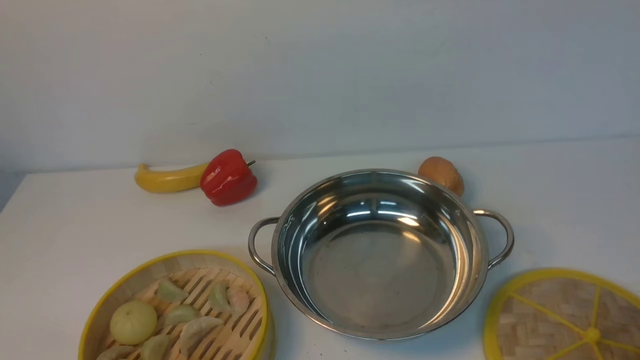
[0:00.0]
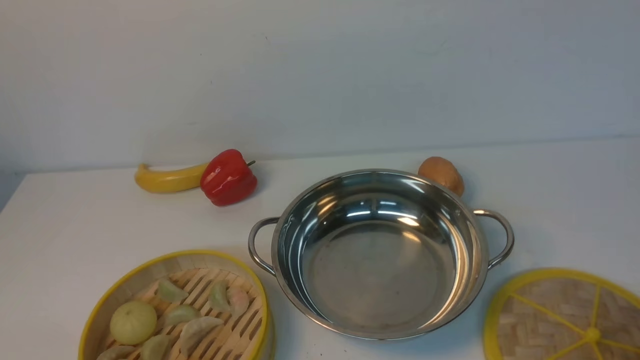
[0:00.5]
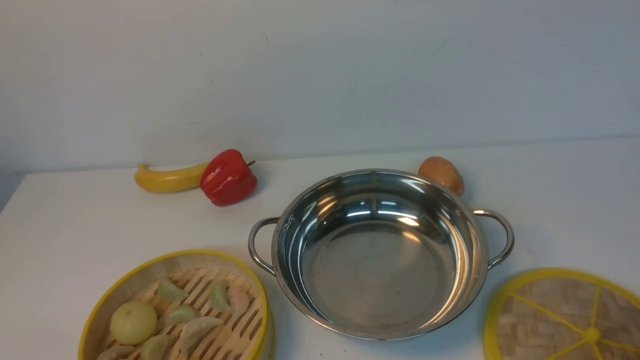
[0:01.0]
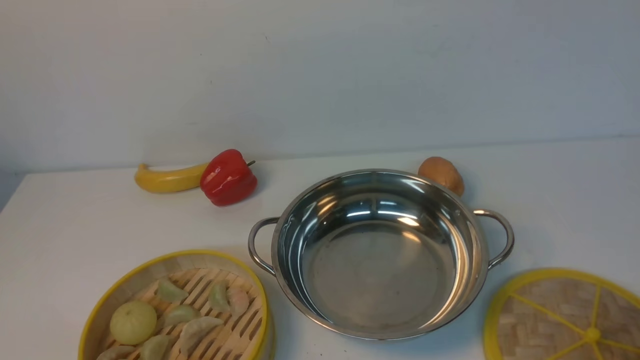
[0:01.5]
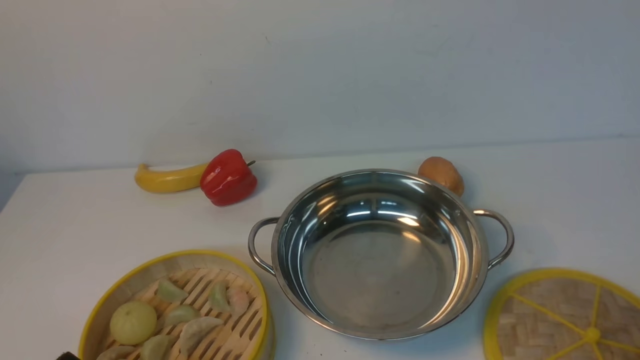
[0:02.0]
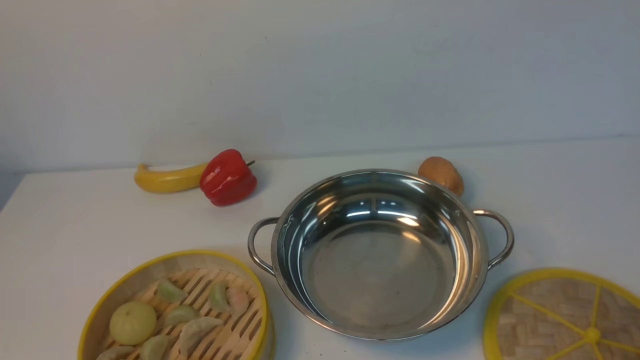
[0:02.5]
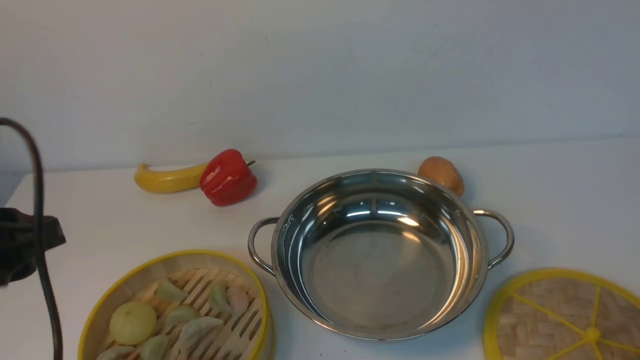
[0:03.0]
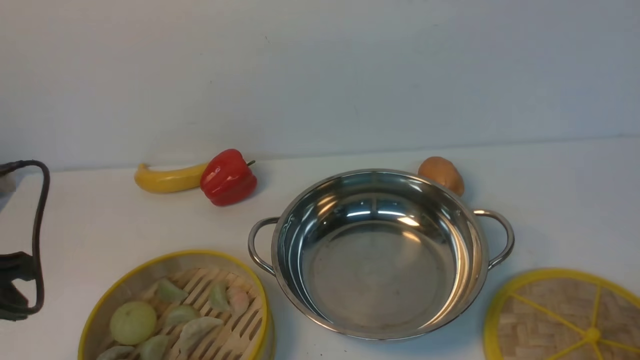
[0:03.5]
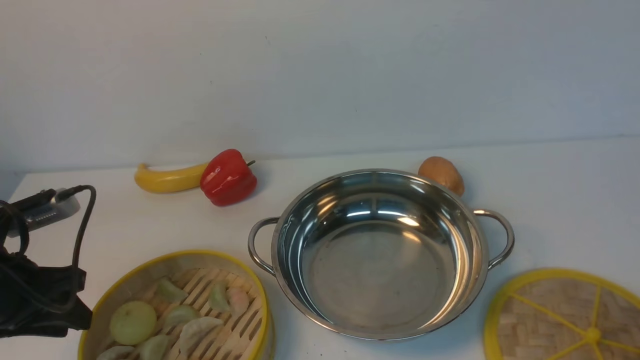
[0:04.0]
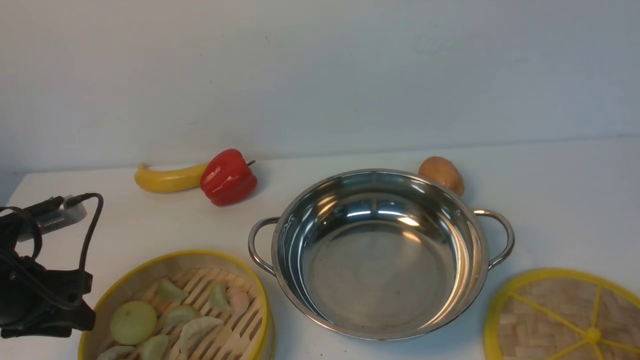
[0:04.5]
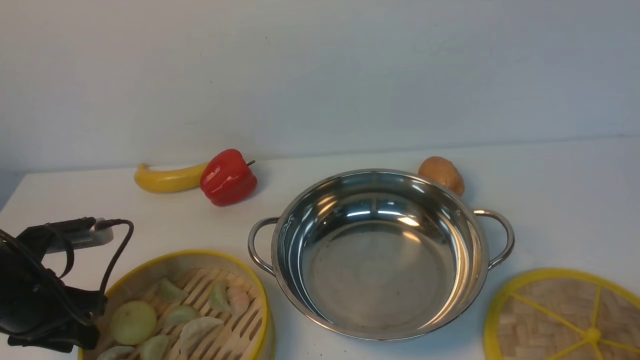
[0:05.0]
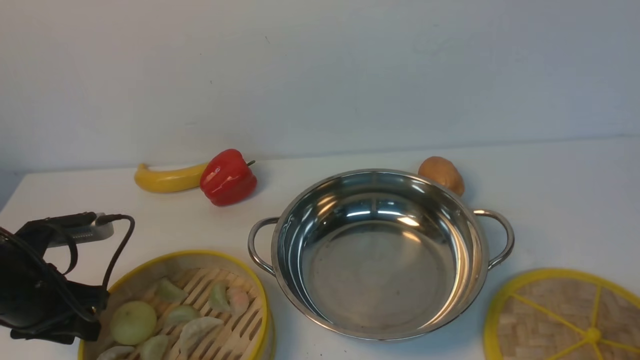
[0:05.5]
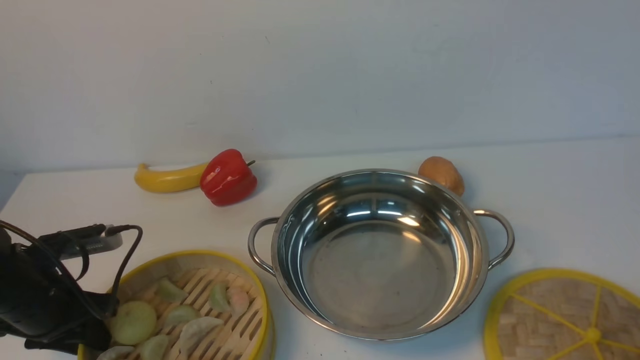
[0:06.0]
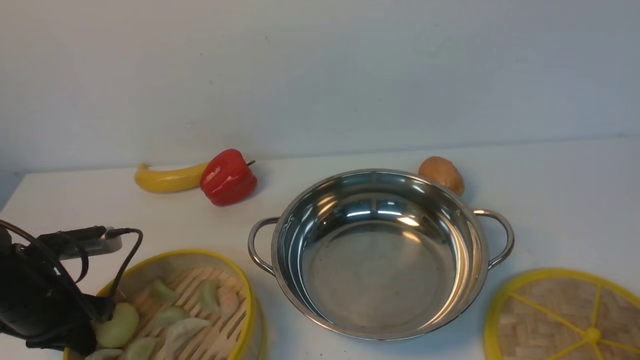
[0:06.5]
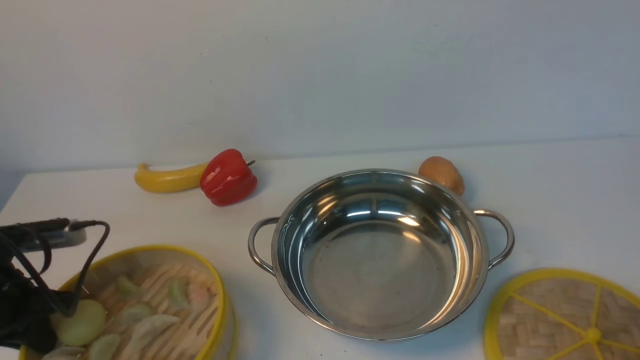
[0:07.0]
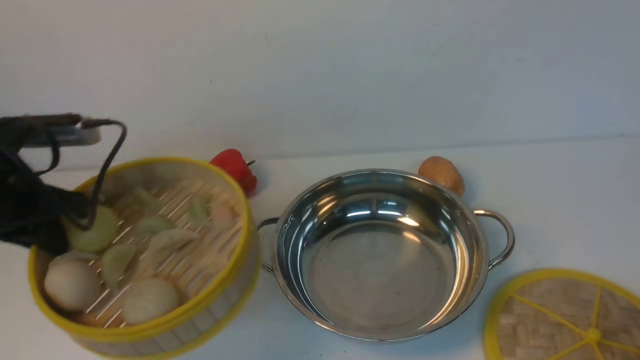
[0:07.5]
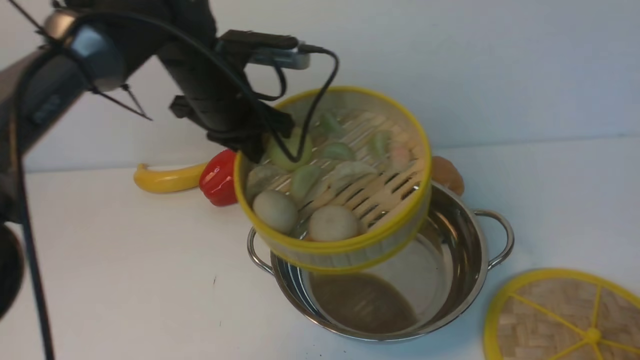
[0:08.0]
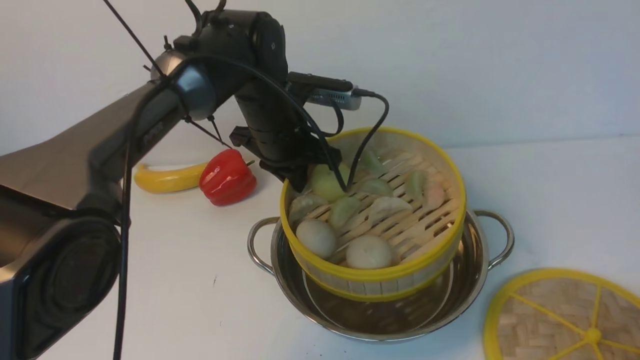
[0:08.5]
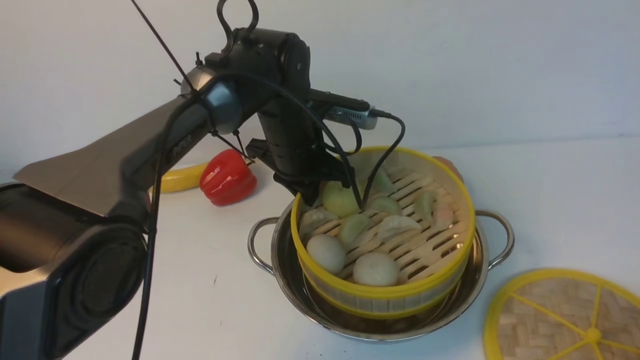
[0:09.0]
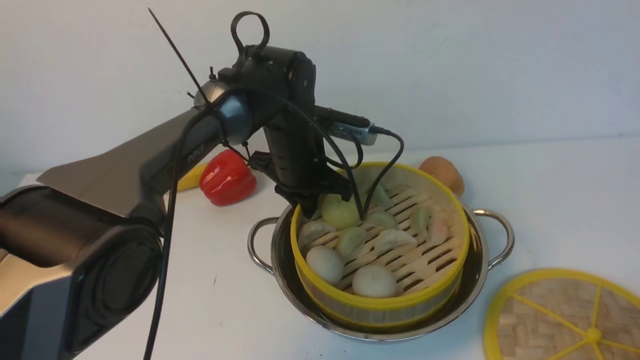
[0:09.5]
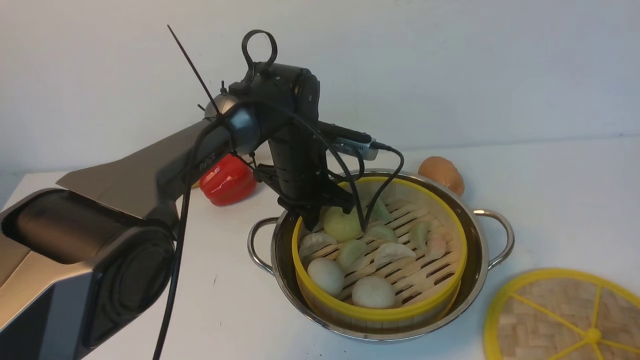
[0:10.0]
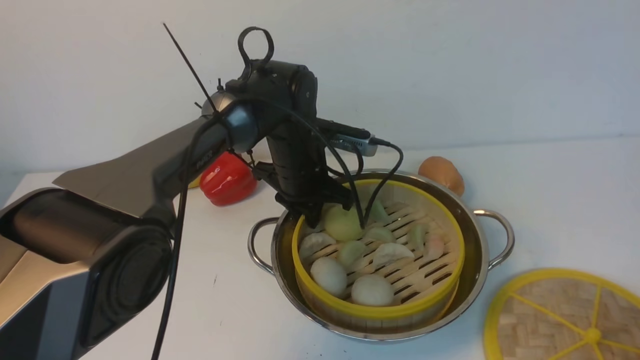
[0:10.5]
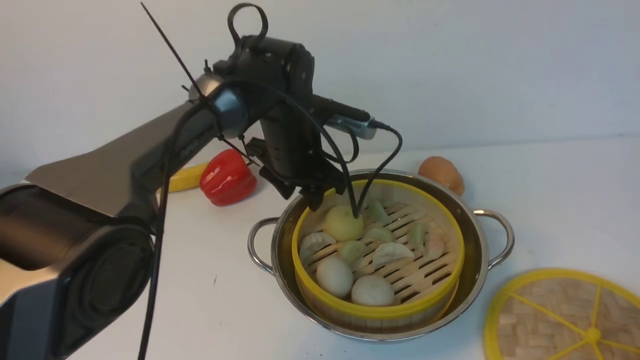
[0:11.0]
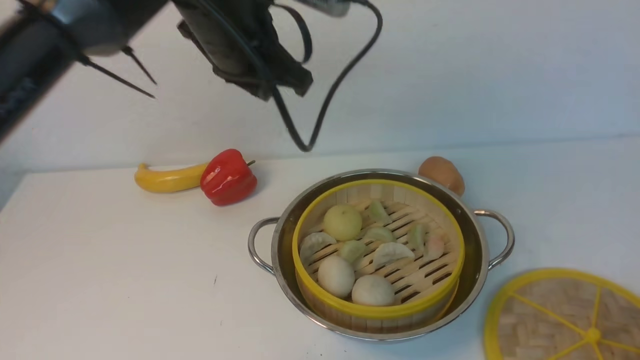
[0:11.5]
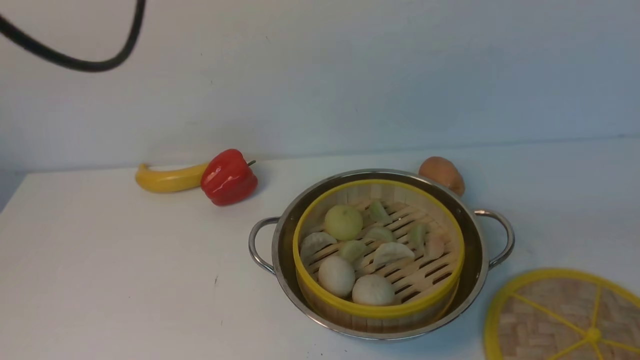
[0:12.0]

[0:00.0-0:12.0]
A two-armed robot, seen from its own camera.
Task of the whole recording: place the steamer in the pot on the white table, and put the lid on the steamer.
Step, 0:00.0 to 0:07.0: use the left arm to lift the steamer closest to it.
Step, 0:08.0 to 0:11.5: use the left arm to put the steamer into the iron steamer pot in the middle.
0:02.0 to 0:04.0: The left gripper goes some 20 cm forward and to the left.
0:04.0 to 0:06.0: The left gripper travels downward by some 5 cm.
0:06.0 to 0:08.0: The left gripper travels to the right, upward and forward by some 30 cm, and closes.
0:08.0 to 0:10.0: The left gripper travels downward and to the right by approximately 15 cm.
0:10.0 to 0:12.0: The left gripper is displaced upward, to the left and backward by approximately 40 cm, and opens and closes again. Meanwhile the right gripper goes about 10 cm upward.

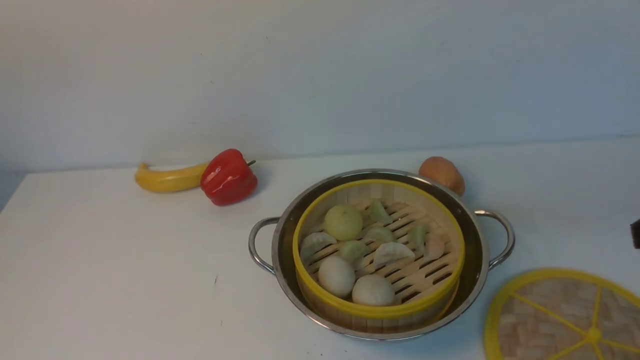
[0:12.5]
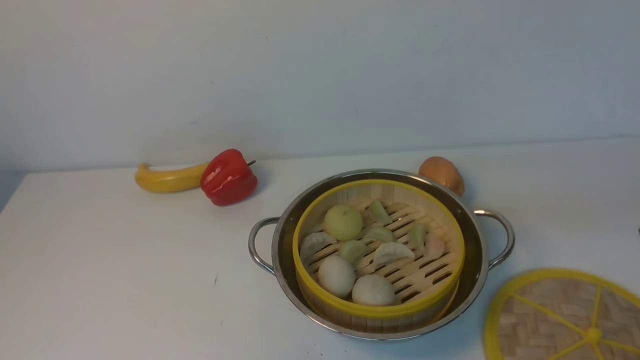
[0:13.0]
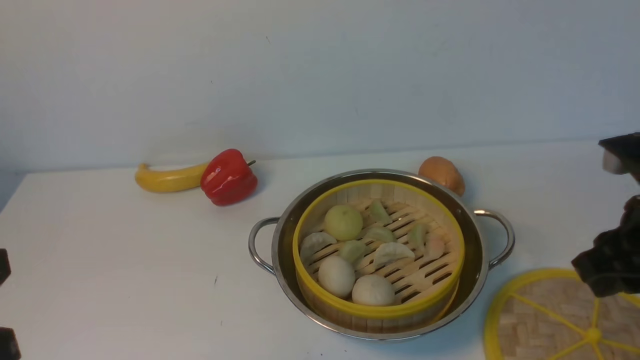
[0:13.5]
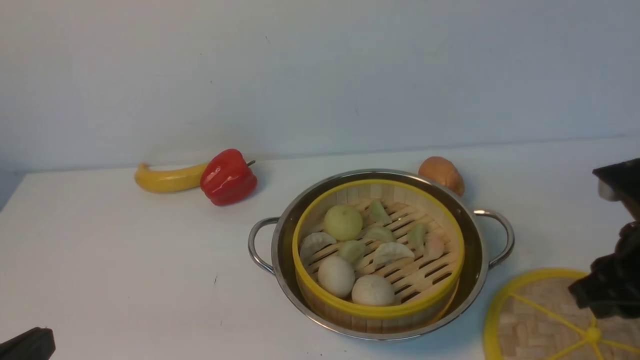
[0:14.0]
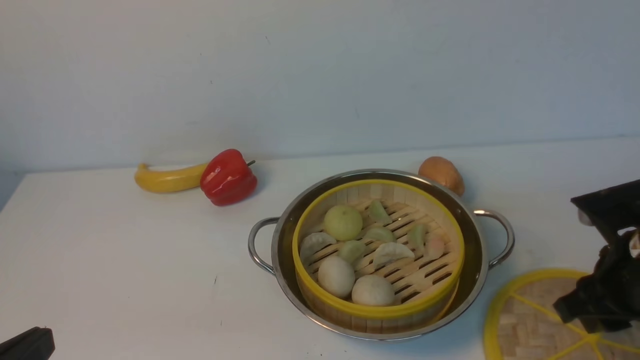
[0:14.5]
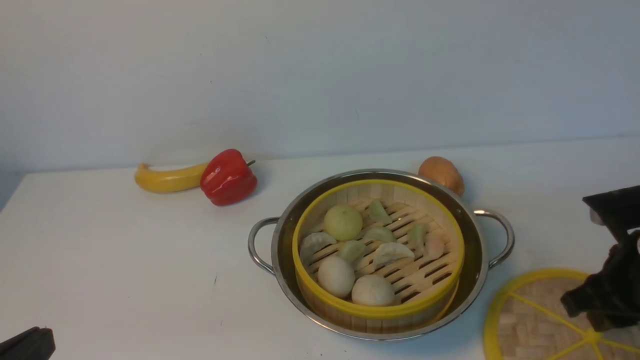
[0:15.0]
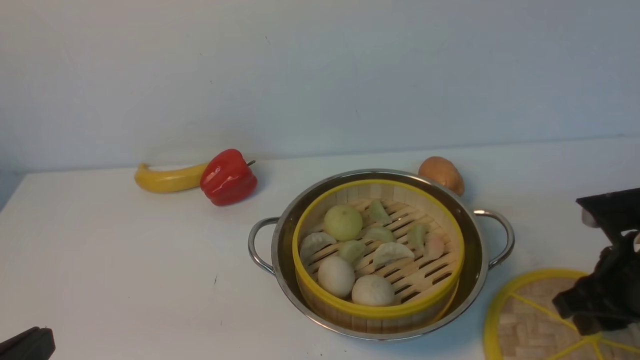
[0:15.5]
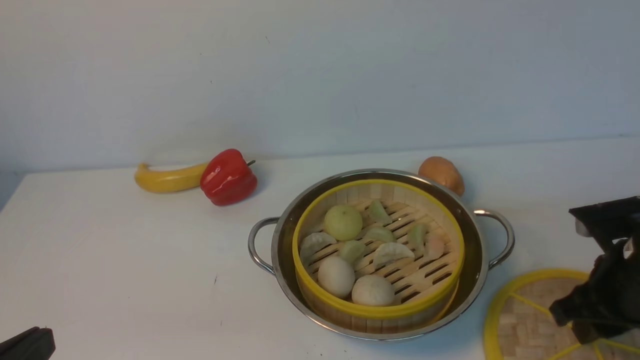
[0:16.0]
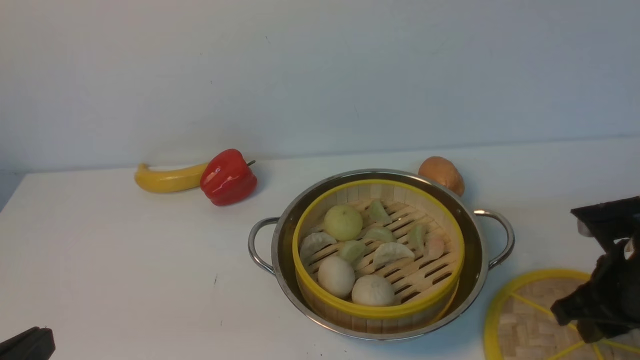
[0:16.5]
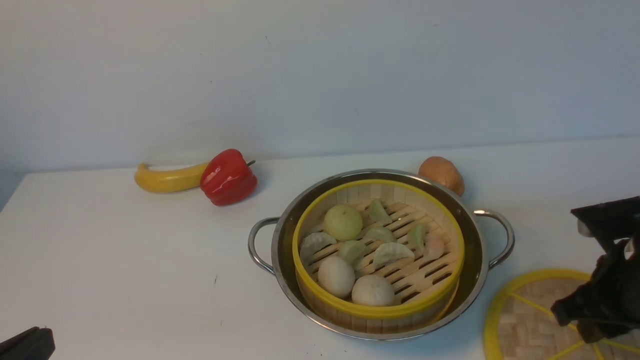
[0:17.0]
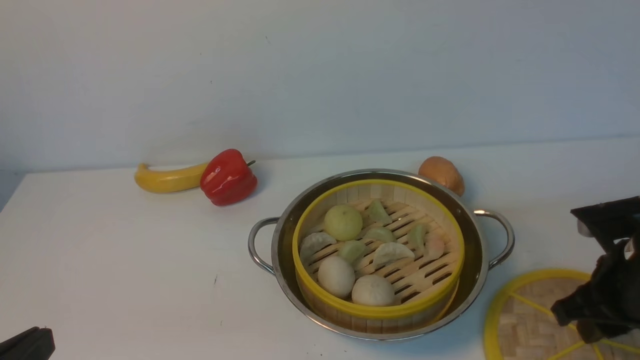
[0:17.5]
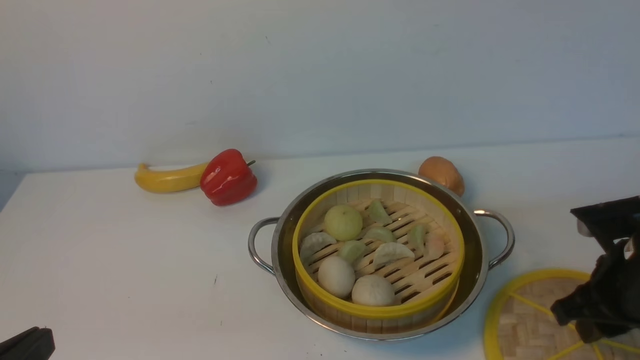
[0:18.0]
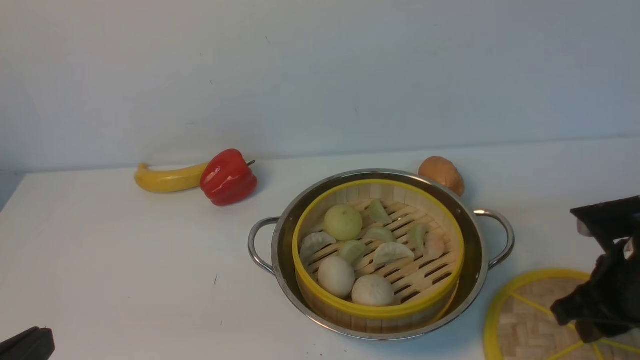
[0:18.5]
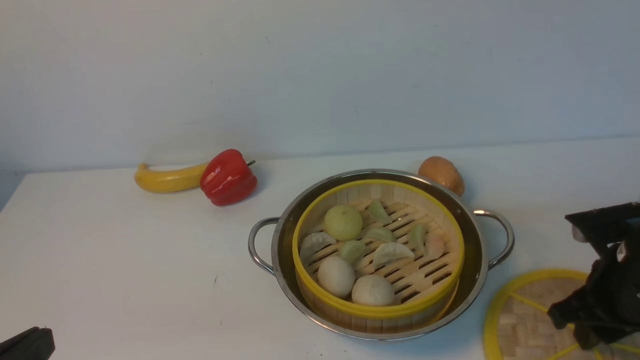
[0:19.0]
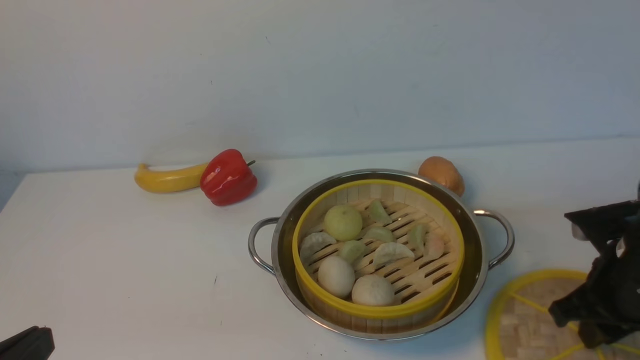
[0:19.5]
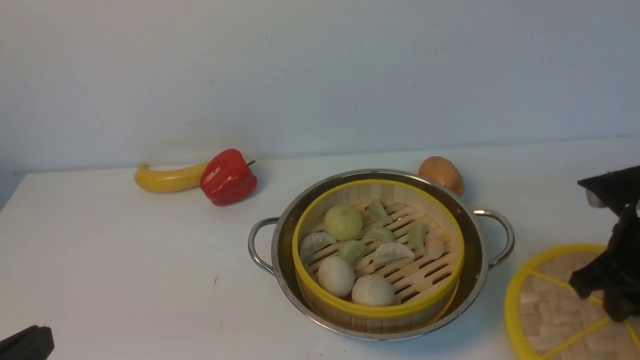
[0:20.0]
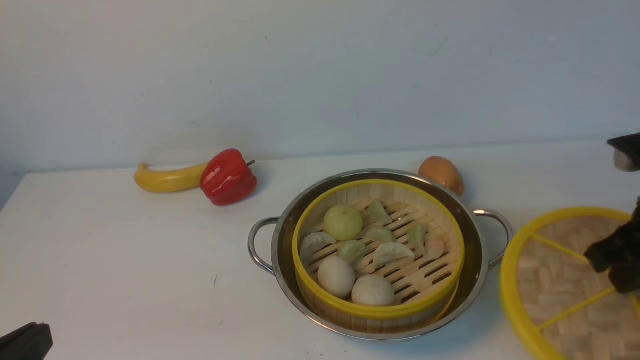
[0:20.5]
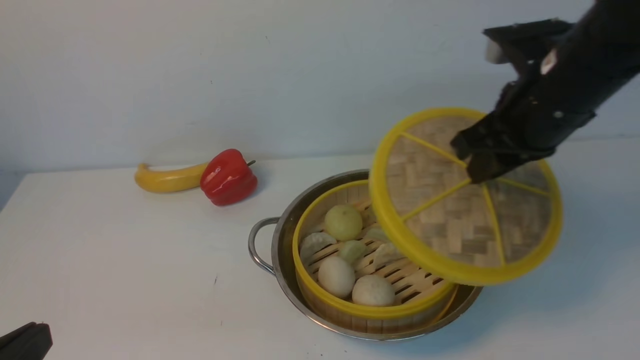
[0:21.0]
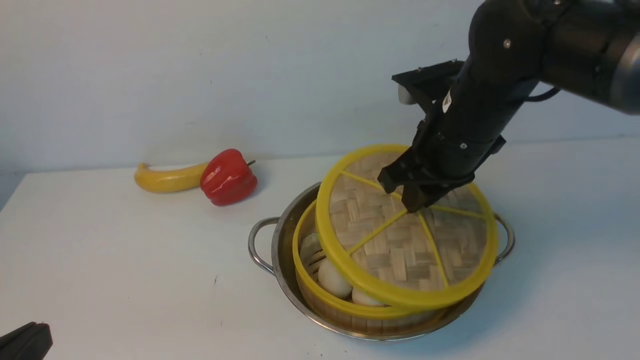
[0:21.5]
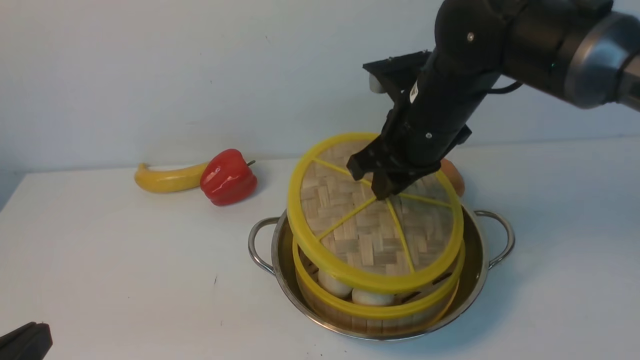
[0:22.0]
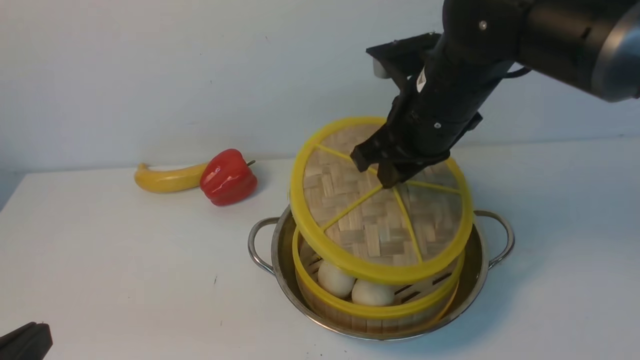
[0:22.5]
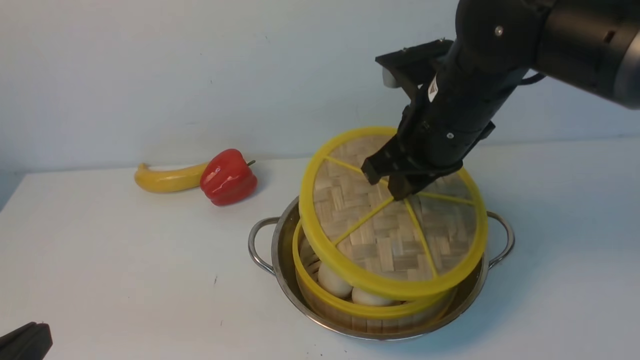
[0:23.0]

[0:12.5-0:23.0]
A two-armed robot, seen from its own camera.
Task of the whole recording: place the steamer in the pot on the white table, and put the lid on the steamer.
Step, 0:12.5 to 0:20.0: use the right arm to lift the lid of the steamer.
0:12.5 to 0:14.5: The left gripper heads downward and backward, covering about 30 cm, while the right gripper heads downward and forward, covering roughly 15 cm.
0:14.5 to 0:16.5: The grippers make only small movements.
0:16.5 to 0:19.0: The two grippers keep their place.
0:19.0 to 0:21.0: The right gripper goes some 20 cm upward, to the left and forward.
0:21.0 to 0:23.0: The right gripper goes some 10 cm to the left.
